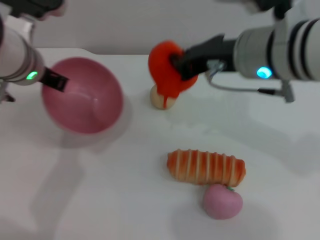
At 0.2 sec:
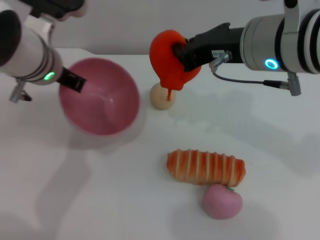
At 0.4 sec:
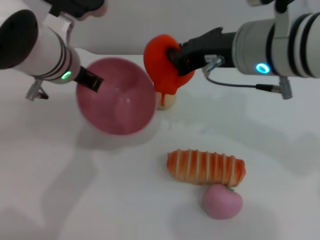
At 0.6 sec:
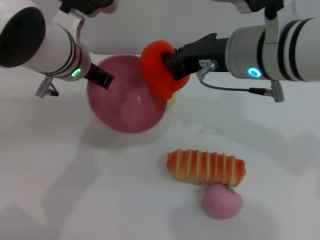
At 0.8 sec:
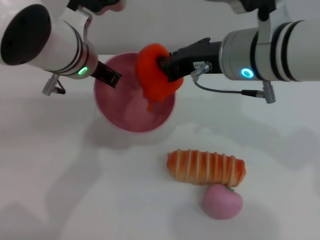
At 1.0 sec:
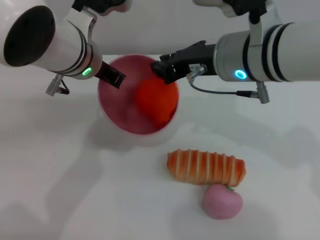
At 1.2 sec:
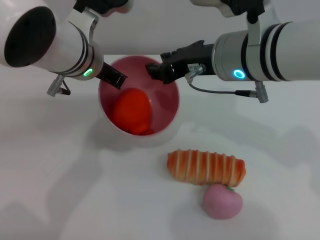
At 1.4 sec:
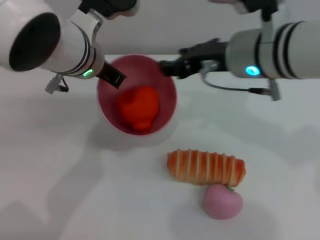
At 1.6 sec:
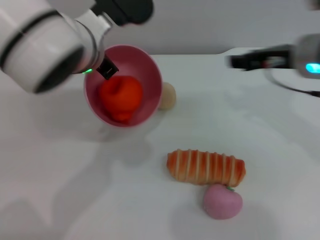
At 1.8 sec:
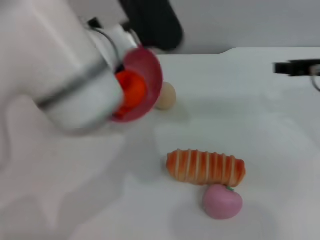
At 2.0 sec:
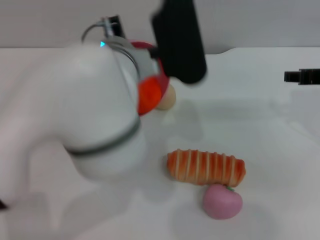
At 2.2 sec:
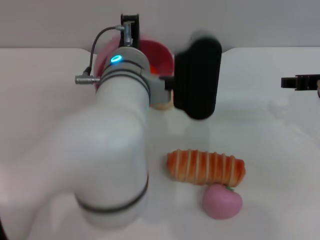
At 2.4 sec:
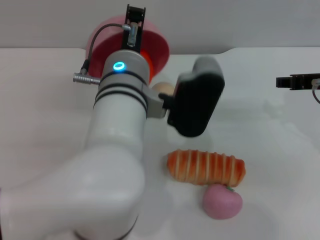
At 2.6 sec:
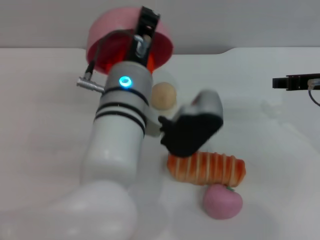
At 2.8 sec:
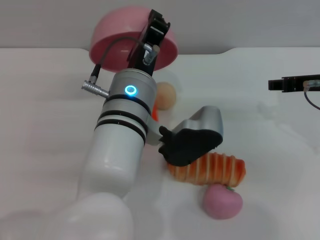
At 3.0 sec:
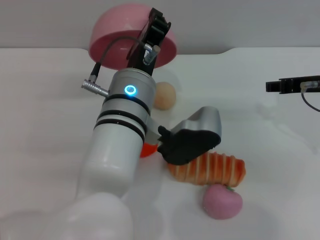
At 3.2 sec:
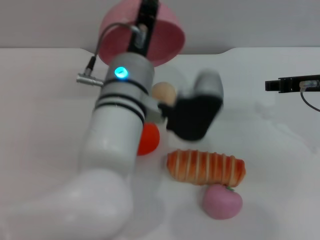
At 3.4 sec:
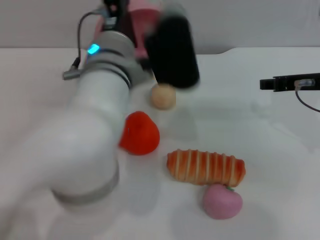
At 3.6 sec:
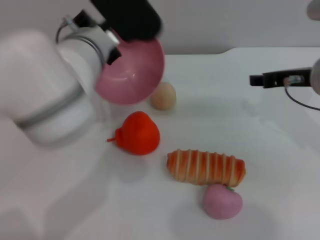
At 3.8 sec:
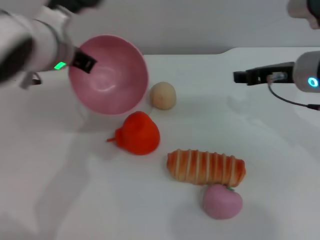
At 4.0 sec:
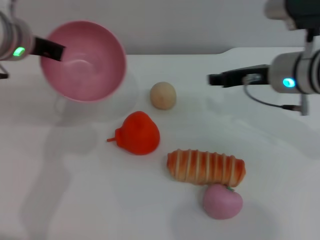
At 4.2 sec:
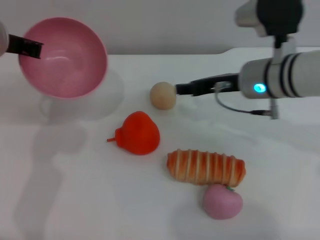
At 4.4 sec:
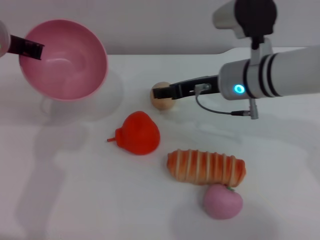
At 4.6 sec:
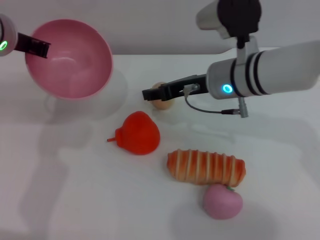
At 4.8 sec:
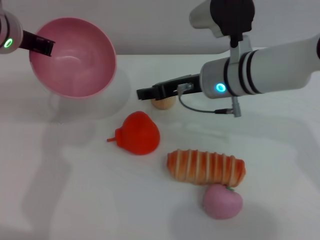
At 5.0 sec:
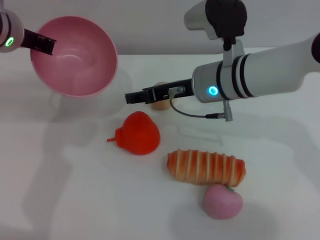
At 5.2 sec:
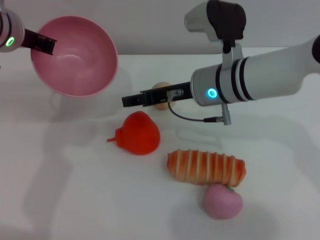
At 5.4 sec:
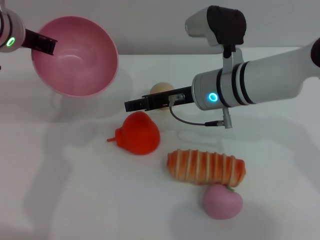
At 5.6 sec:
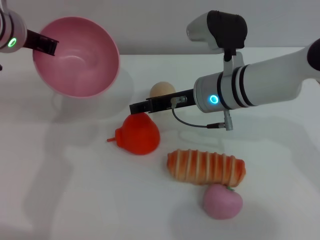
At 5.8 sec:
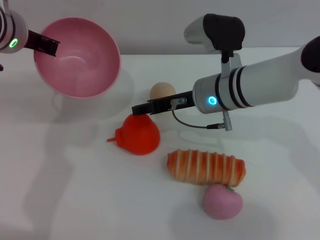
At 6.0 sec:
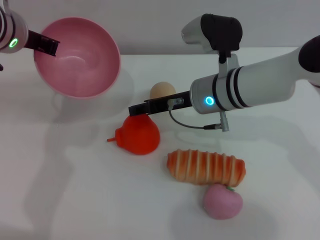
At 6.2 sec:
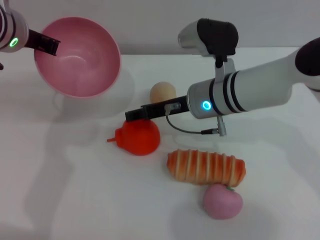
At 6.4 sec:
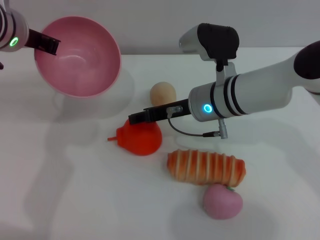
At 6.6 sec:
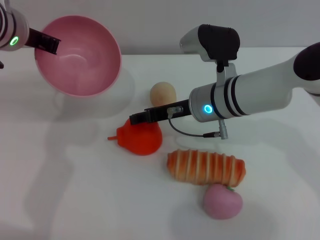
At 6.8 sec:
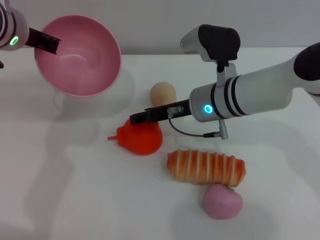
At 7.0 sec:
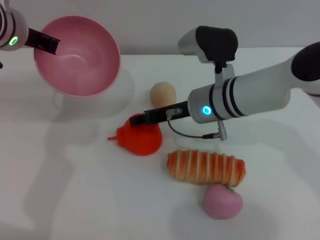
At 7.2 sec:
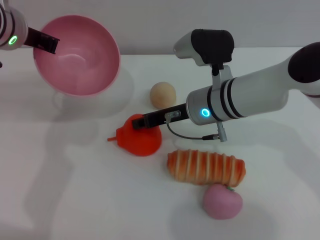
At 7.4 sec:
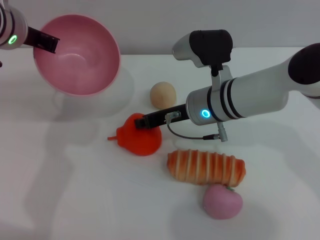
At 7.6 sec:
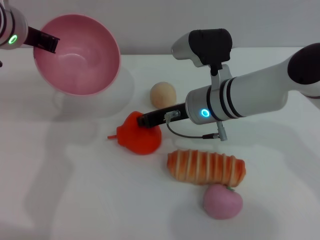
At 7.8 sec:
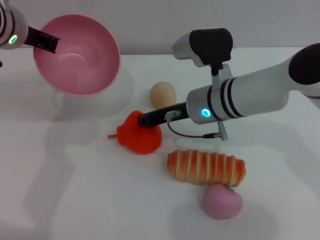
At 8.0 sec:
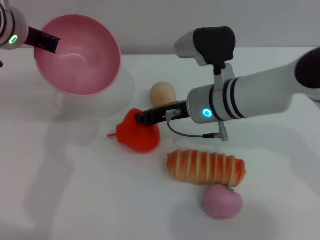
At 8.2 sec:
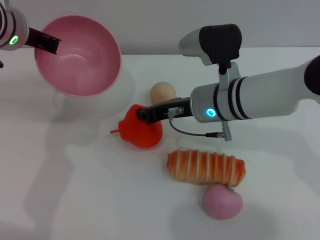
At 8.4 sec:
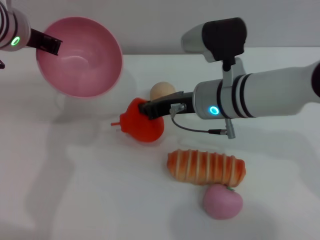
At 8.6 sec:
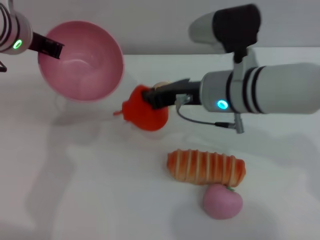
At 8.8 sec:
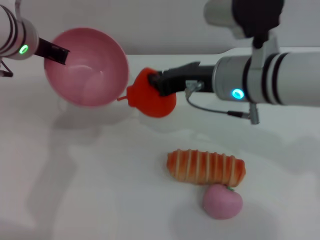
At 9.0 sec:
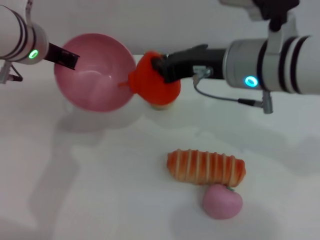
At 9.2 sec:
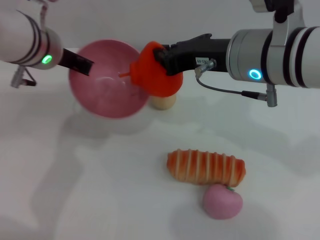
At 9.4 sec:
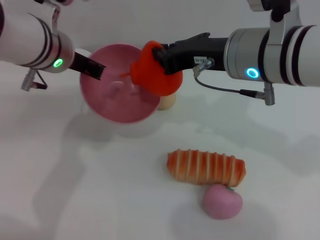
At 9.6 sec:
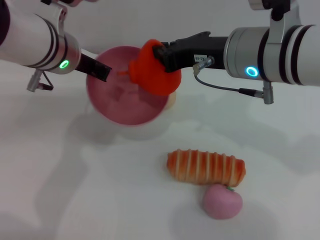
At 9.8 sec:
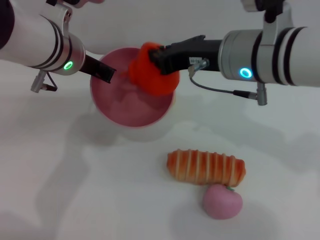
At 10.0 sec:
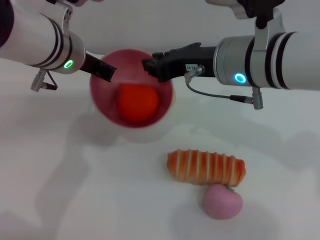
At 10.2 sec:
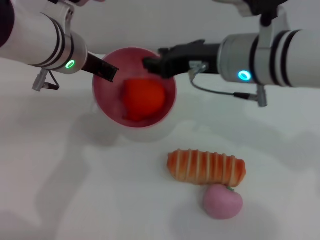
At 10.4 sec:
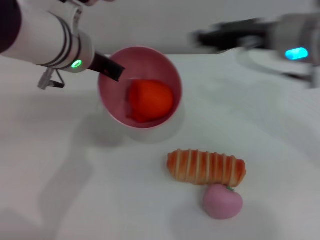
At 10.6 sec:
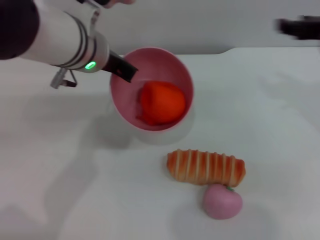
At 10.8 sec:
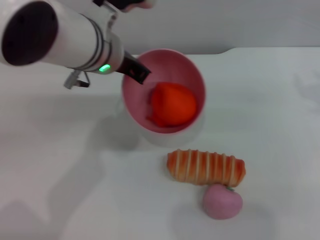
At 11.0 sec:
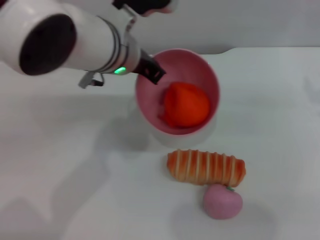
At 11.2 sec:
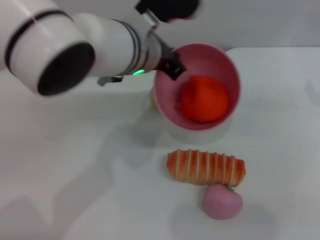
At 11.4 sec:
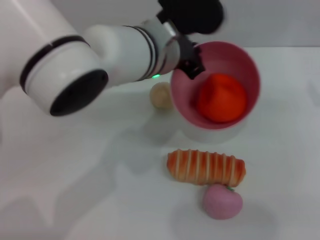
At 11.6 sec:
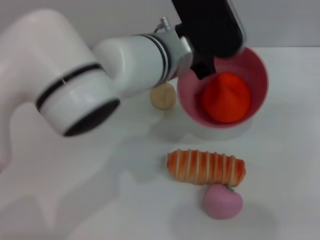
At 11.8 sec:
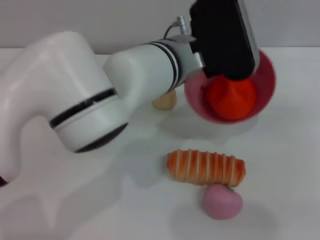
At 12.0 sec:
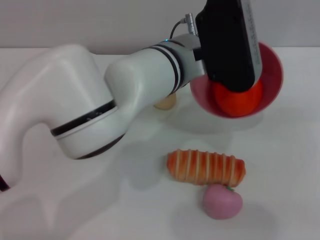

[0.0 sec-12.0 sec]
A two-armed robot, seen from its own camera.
Task of the whole recording: put the orange into the pink bowl and pour it out repeatedly.
Step, 0.0 sec to 1.2 sec: Place the orange into the bowl.
Step, 1.4 sec to 3.0 sec: Pour the orange out of the bowl.
Step, 3.2 sec to 8.8 sec: Pick up the orange with the right gripper.
Step, 9.0 sec to 10.2 sec: Place the orange into the bowl.
0.0 sec to 1.6 sec: The grippers both shift to the right by approximately 10 cm. The right gripper opens its fingers.
1.6 sec to 3.0 sec: The left gripper heads backward, downward and to the right, covering roughly 10 cm; the right gripper goes some 5 cm to the right.
3.0 sec to 4.4 sec: The right gripper goes about 15 cm to the left. The left gripper travels to the left, forward and upward by some 20 cm.
4.4 sec to 6.0 sec: There are only small adjustments of the grippers.
6.0 sec to 7.6 sec: The right gripper closes its fingers.
7.6 sec to 9.0 sec: The right gripper moves upward and backward, roughly 15 cm.
9.0 sec to 10.4 sec: Both grippers travel together to the right, approximately 5 cm. The right gripper opens.
10.4 sec to 12.0 sec: Both grippers travel together to the right, roughly 15 cm.

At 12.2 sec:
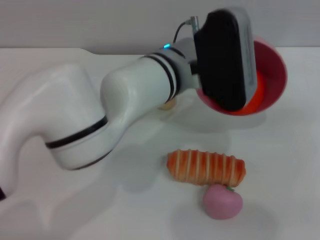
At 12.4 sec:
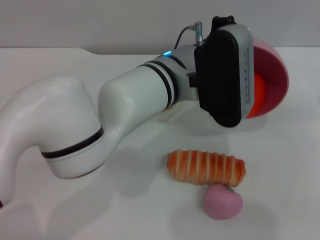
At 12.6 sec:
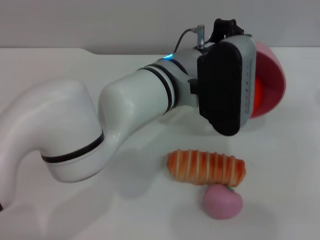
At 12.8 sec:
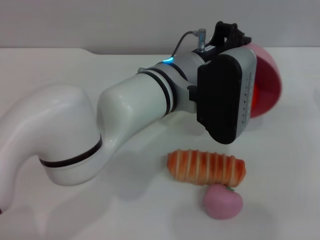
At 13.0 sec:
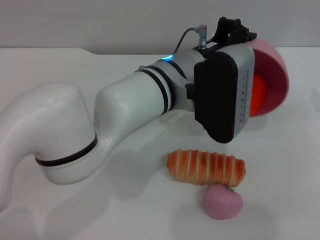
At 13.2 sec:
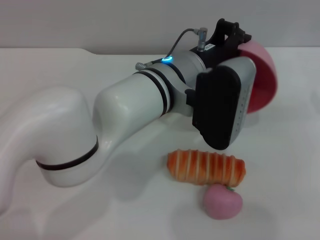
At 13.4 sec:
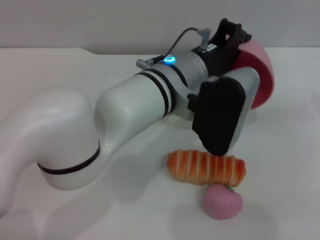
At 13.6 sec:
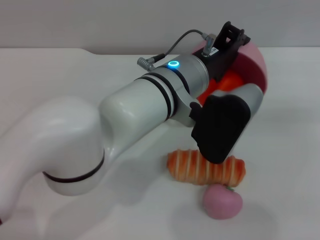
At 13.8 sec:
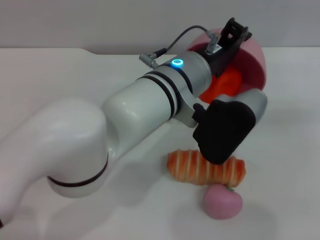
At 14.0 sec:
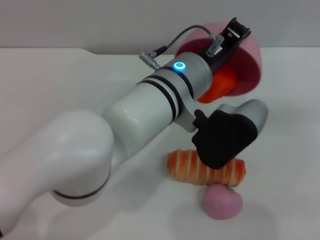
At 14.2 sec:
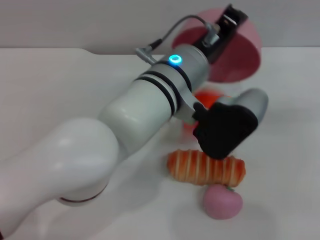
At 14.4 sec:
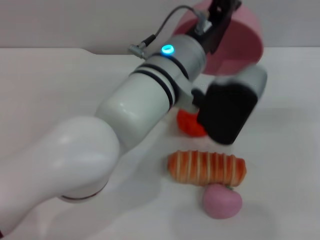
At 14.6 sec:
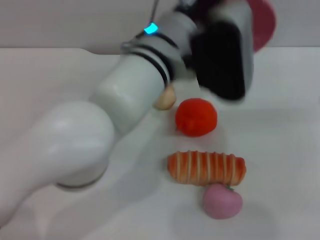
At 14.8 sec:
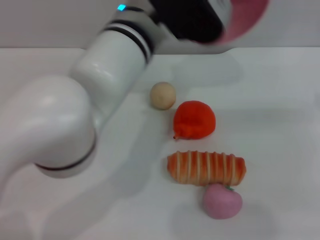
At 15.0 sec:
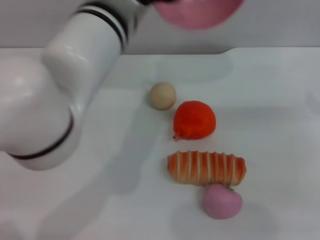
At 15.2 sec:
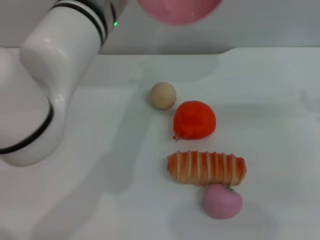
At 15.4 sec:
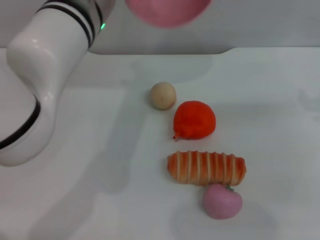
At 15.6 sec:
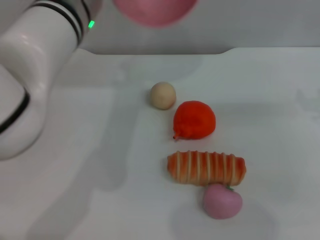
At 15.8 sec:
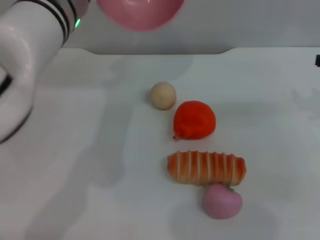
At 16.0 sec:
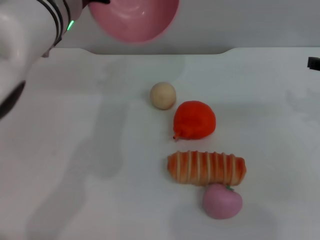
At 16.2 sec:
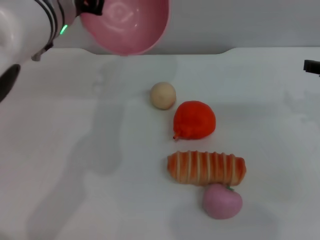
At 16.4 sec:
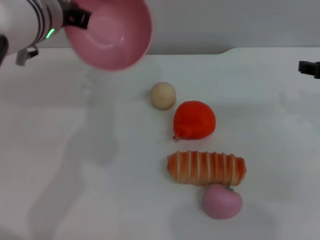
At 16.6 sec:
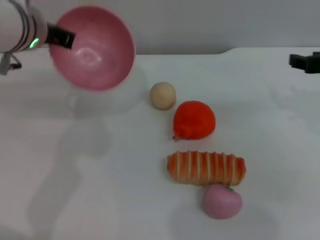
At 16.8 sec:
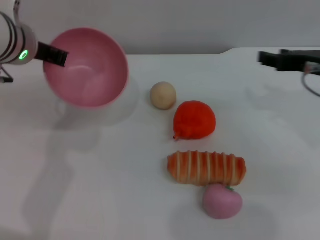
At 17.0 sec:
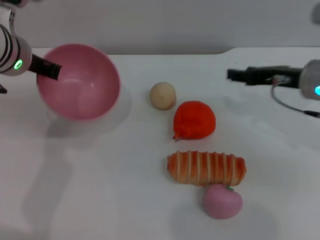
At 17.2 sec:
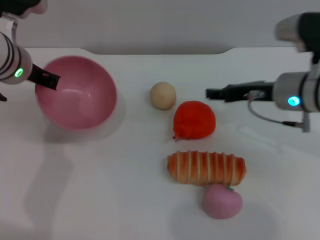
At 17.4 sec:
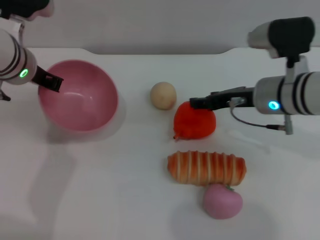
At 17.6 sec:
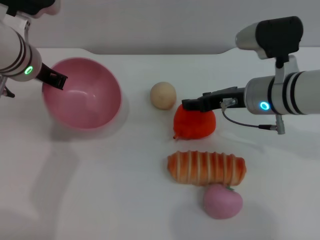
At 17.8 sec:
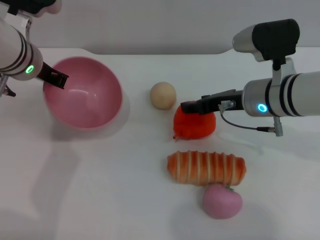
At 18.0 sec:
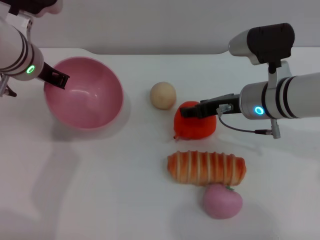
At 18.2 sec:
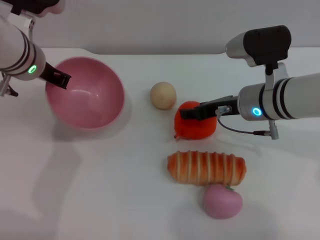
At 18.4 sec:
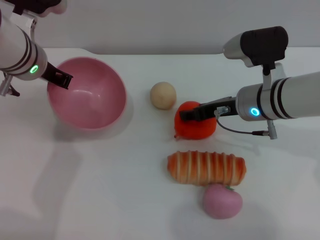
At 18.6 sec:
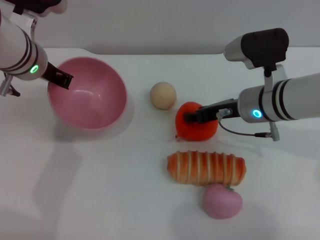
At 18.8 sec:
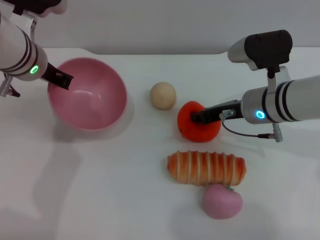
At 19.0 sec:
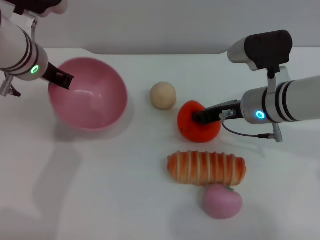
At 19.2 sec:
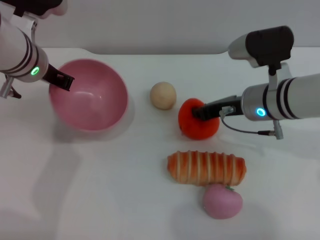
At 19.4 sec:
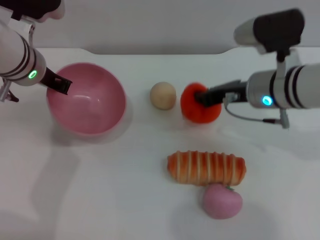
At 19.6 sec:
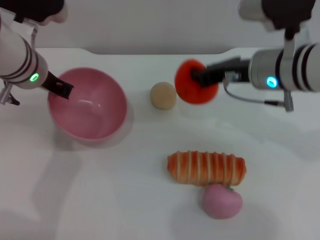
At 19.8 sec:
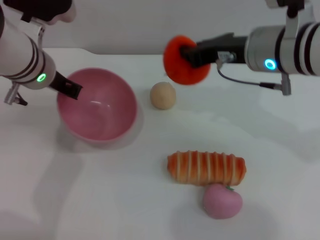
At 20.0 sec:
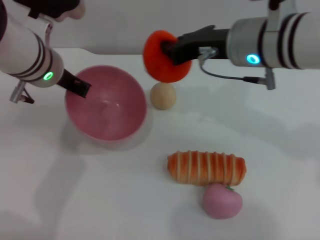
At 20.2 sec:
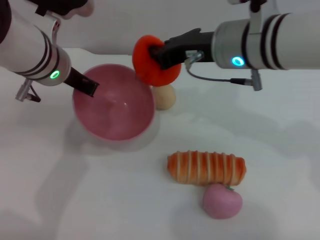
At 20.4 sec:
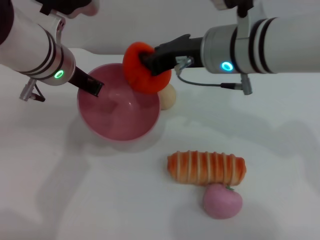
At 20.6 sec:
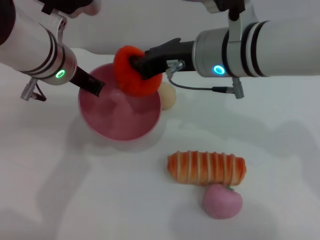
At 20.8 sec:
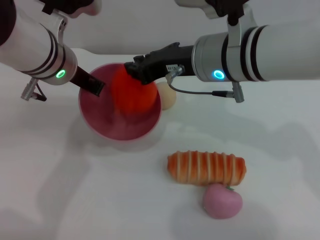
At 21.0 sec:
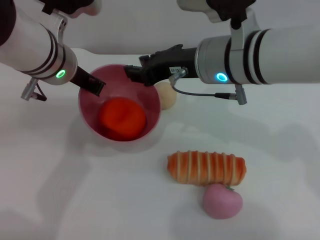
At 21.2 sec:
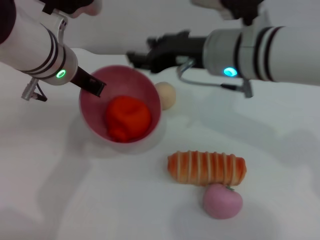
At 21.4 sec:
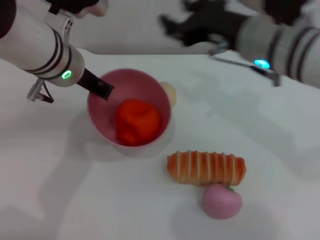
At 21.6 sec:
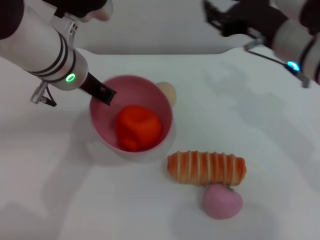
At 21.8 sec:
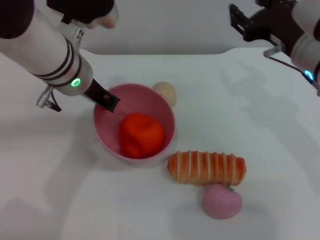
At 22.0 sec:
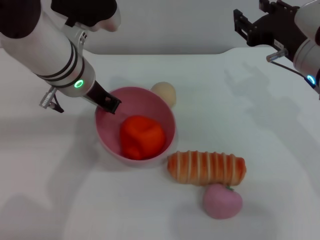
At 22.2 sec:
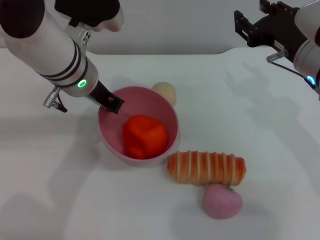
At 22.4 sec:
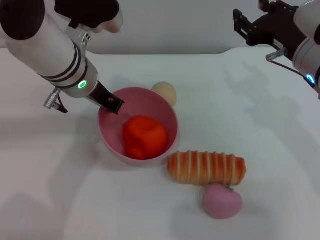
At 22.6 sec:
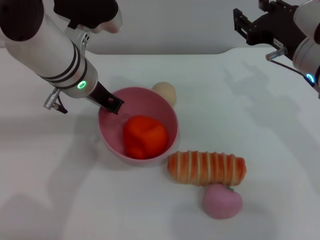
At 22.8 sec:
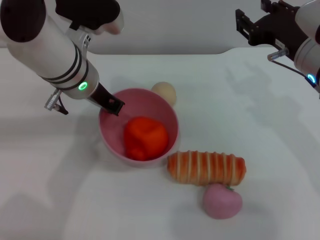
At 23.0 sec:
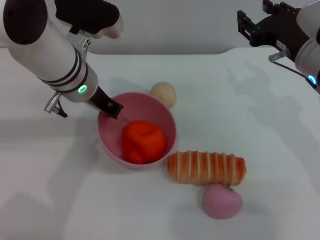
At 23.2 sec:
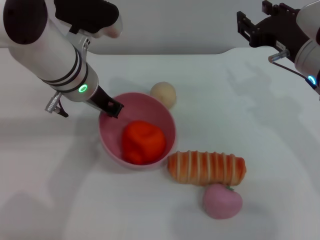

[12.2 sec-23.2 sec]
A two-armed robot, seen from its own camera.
Task of the whole recording: put the orange into the pink bowl and pour it out repeatedly.
Step, 12.2 sec to 14.4 sec: Pour the orange out of the bowl.
Step, 14.6 sec to 19.4 sec: Pick up the orange with the right gripper.
Step, 19.6 sec to 21.0 sec: Pour the orange out of the bowl.
13.8 sec to 15.4 sec: The left gripper travels to the left and upward by about 10 cm.
15.4 sec to 17.0 sec: Both grippers travel together to the left, about 10 cm.
17.0 sec to 18.4 sec: The right gripper shifts about 5 cm to the left.
18.4 sec to 20.0 sec: The right gripper travels upward by some 10 cm, and closes up.
20.0 sec to 21.6 sec: The right gripper travels to the right by roughly 5 cm, and opens its fingers.
21.6 sec to 23.2 sec: The grippers stay close to where they were, moving slightly.
